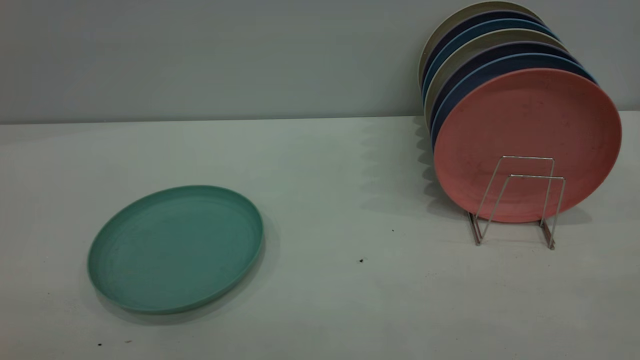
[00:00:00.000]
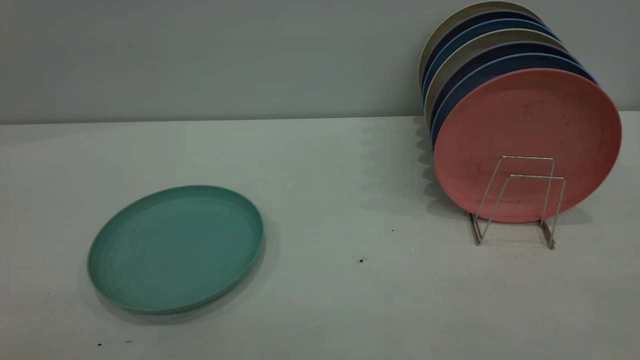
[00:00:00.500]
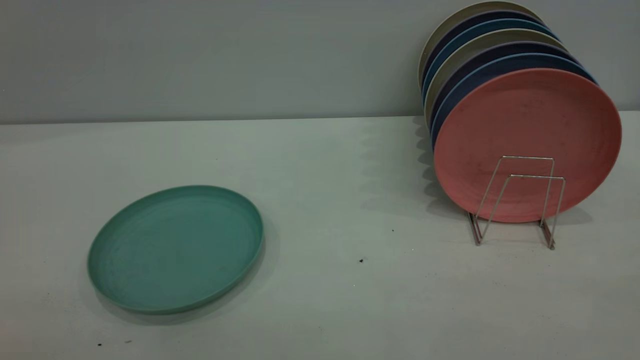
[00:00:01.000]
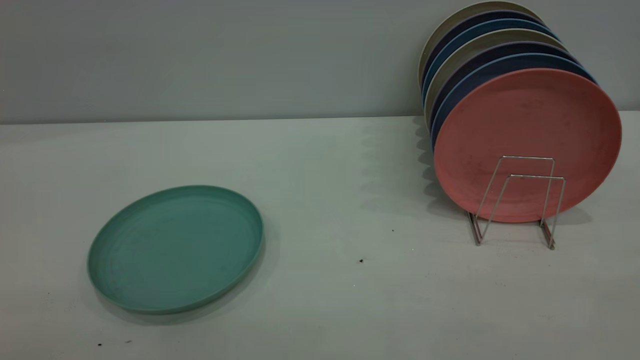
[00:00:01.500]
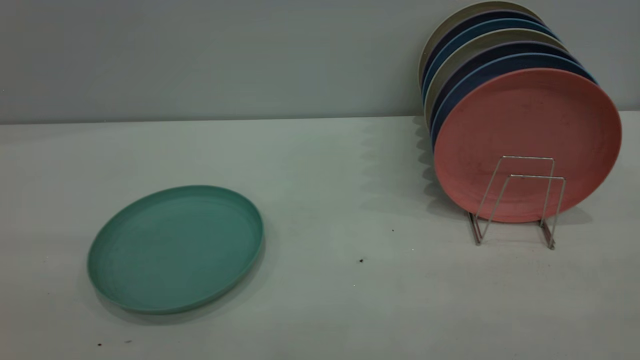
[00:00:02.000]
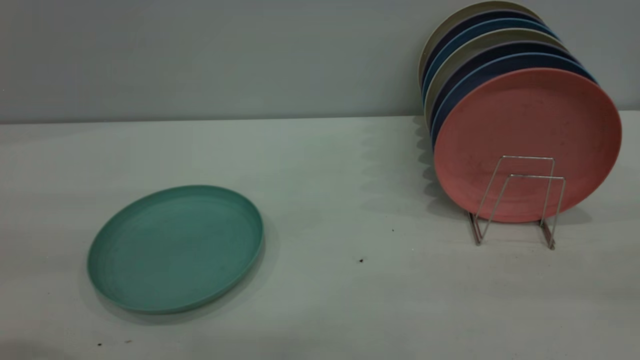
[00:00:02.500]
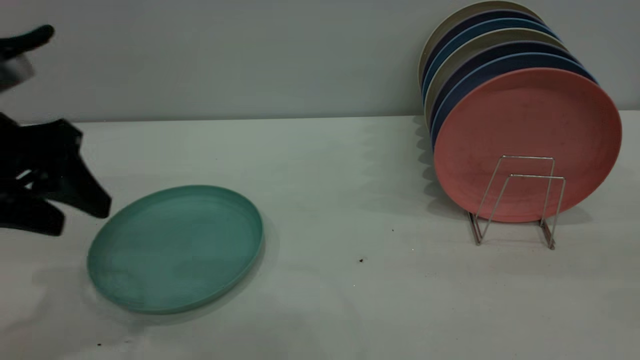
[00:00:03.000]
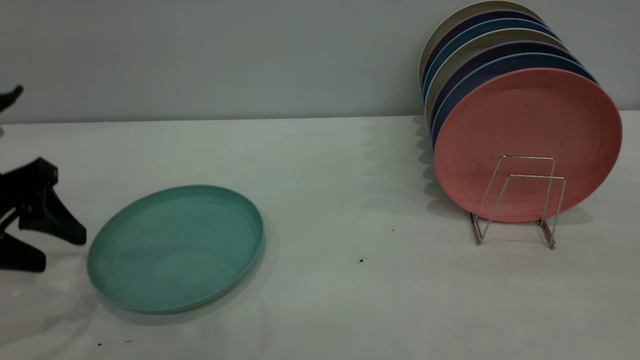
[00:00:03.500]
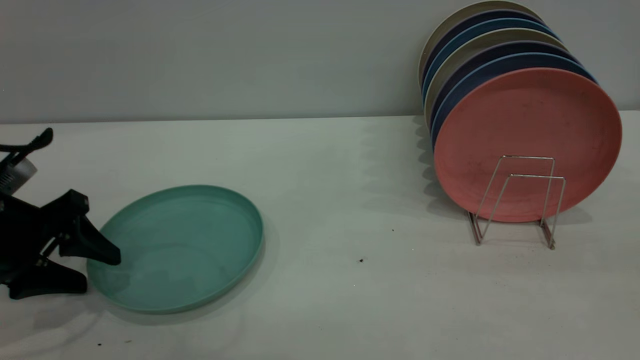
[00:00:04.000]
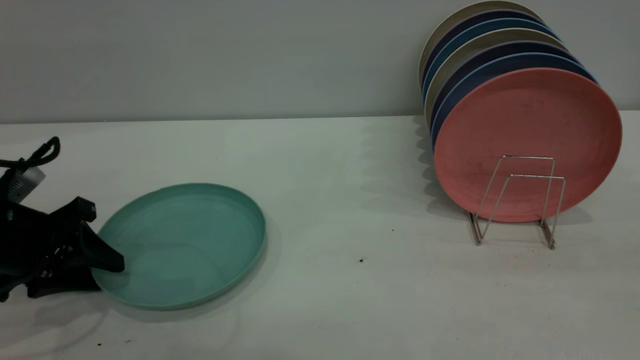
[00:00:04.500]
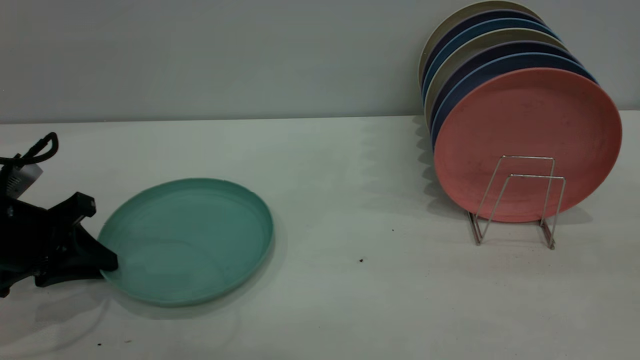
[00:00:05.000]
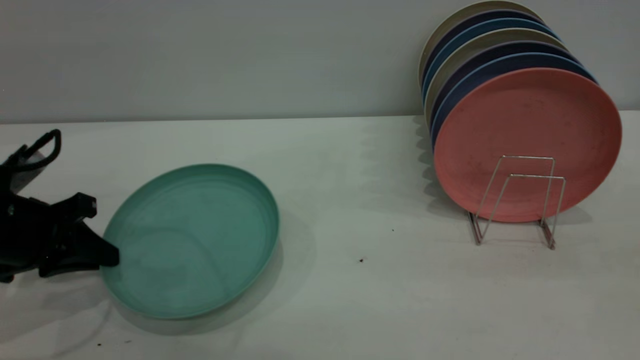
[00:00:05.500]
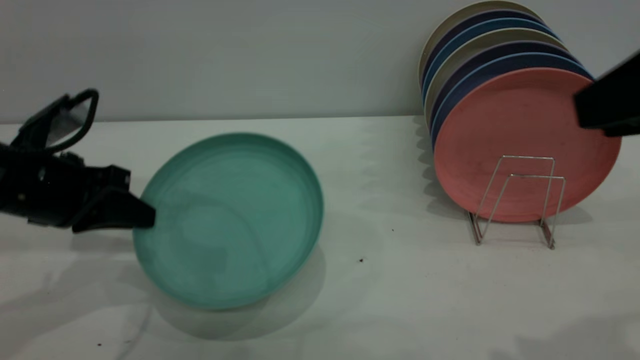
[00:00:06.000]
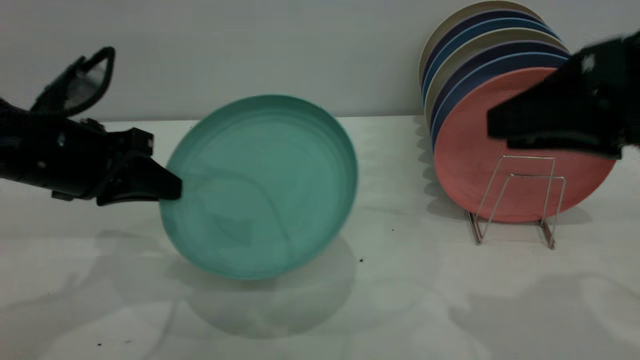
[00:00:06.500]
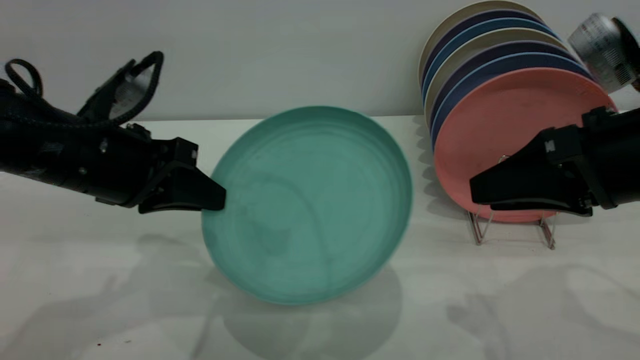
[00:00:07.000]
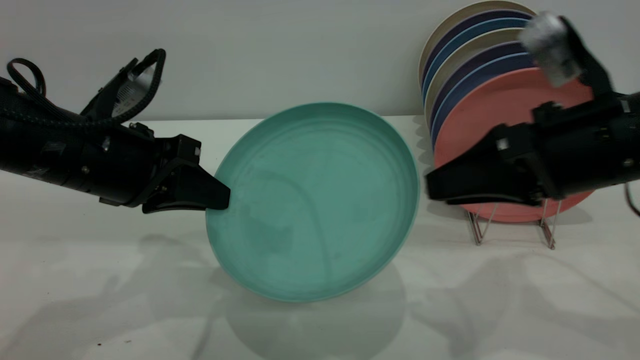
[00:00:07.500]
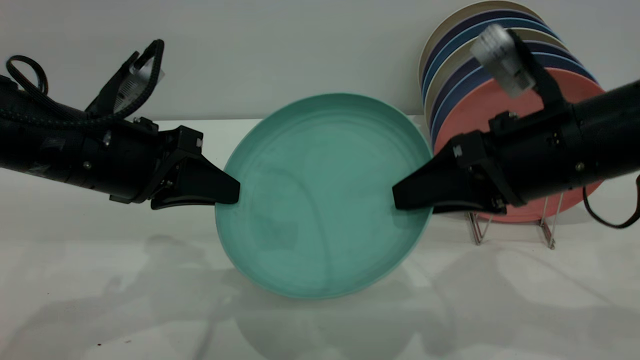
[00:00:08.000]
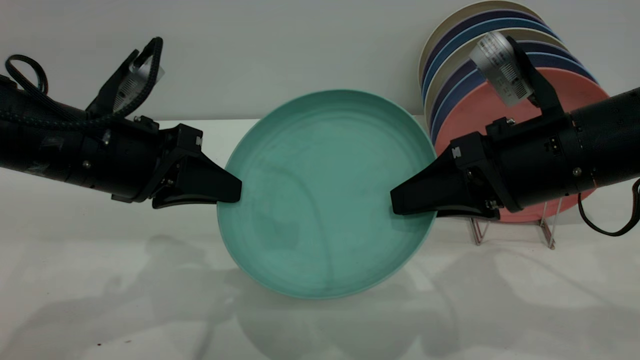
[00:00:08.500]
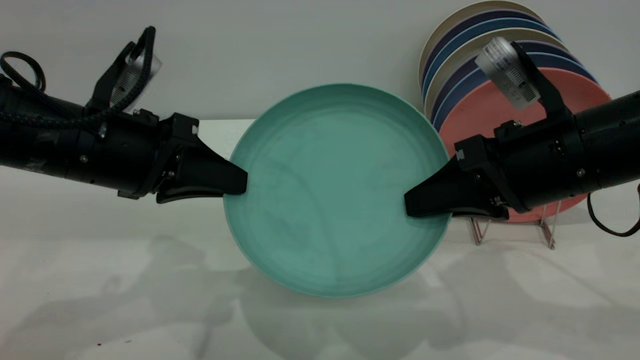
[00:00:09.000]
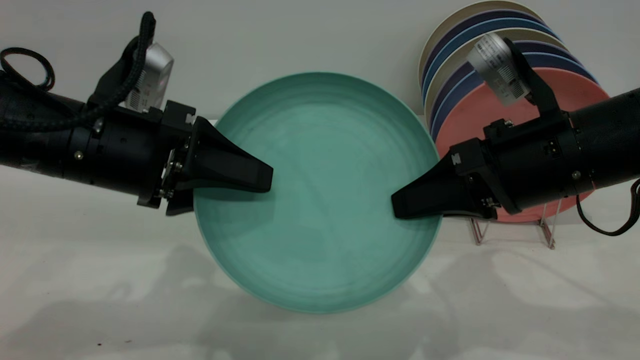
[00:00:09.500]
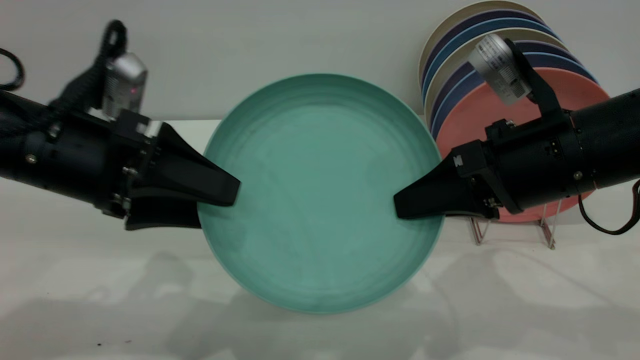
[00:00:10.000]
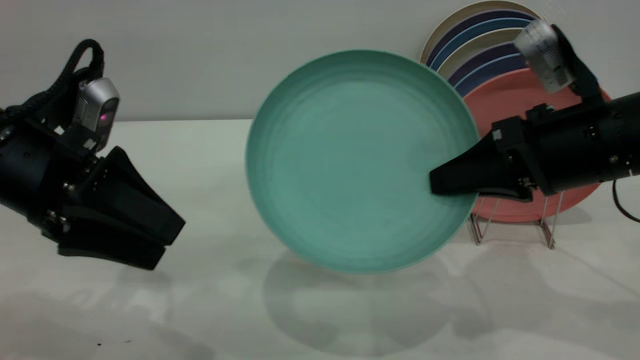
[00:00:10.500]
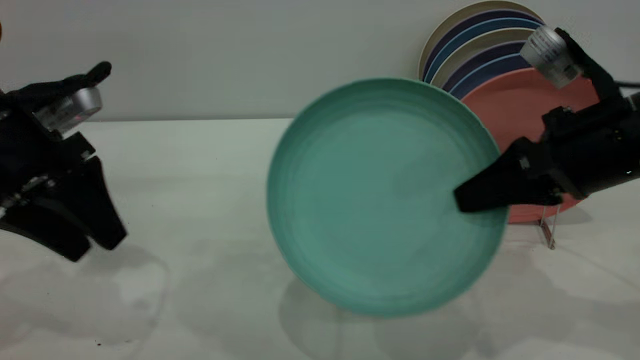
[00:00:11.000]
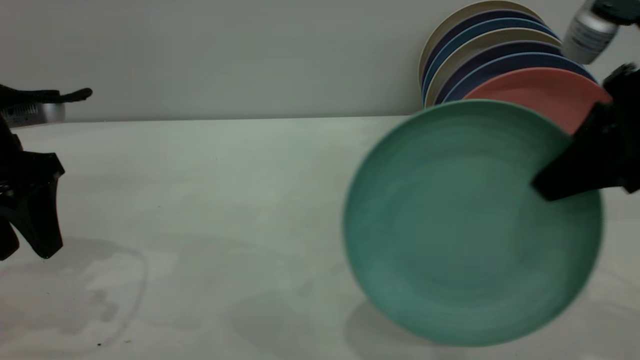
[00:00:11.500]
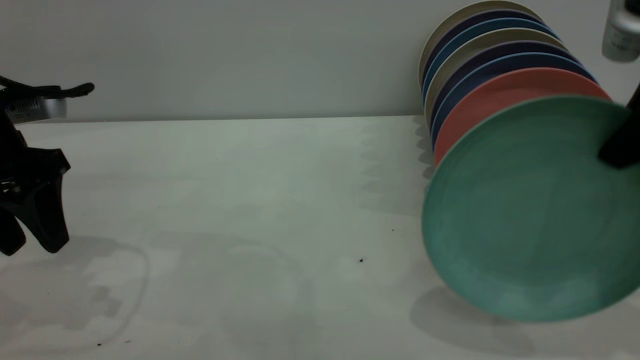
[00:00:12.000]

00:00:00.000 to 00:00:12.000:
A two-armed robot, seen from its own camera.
Task of the whole recording: the left gripper grasp the green plate, the left gripper pass the green plate to the right gripper, and the right gripper place the green plate on the plate rack.
Step, 00:00:00.000 to 00:00:05.000: Pick up the plate with the left gripper.
Step, 00:00:05.500 to 00:00:10.000: Pass the plate from the left gripper to the right gripper.
00:00:02.000 to 00:00:04.000: The left gripper travels downward and forward by approximately 35 cm.
00:00:04.000 to 00:00:06.000: The right gripper heads forward, covering approximately 5 cm. Meanwhile the left gripper ends up roughly 5 cm from where it was, and closes its fingers.
00:00:06.000 to 00:00:08.000: The left gripper shifts roughly 10 cm to the right. Meanwhile the right gripper heads downward, forward and to the left, covering about 15 cm.
00:00:08.000 to 00:00:10.000: The left gripper opens. The right gripper closes up.
00:00:10.000 to 00:00:12.000: The right gripper moves upward and to the right, some 15 cm. The left gripper is displaced to the left by some 10 cm.

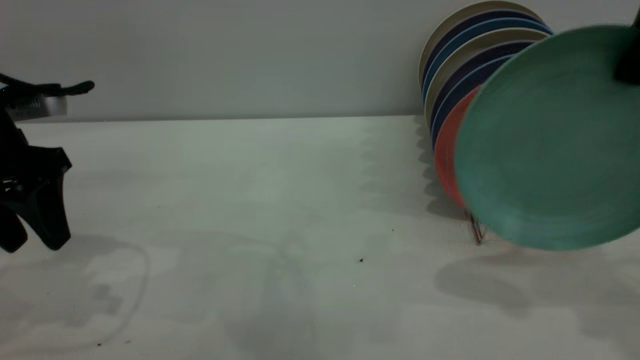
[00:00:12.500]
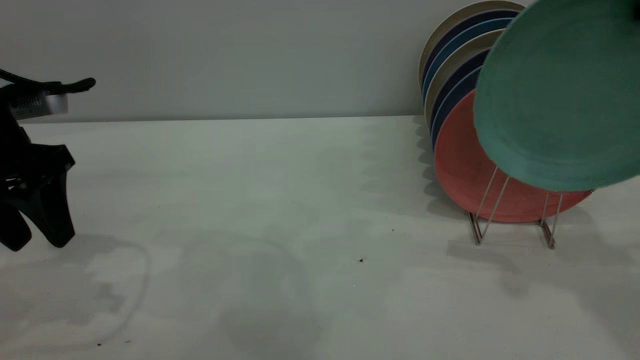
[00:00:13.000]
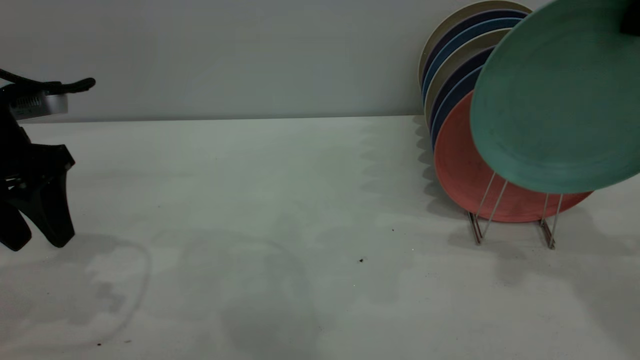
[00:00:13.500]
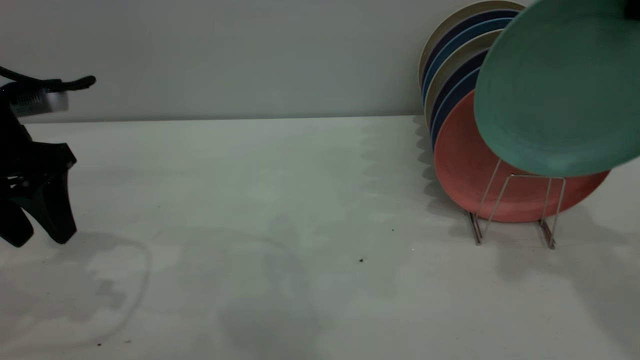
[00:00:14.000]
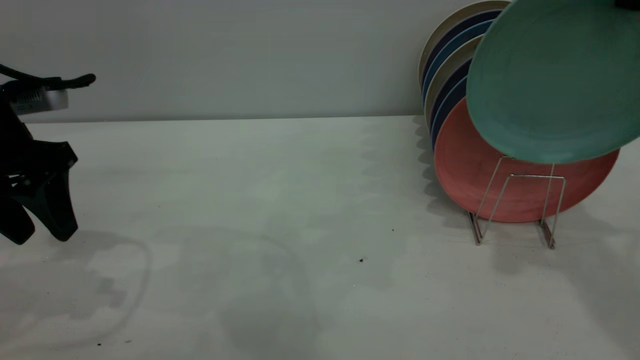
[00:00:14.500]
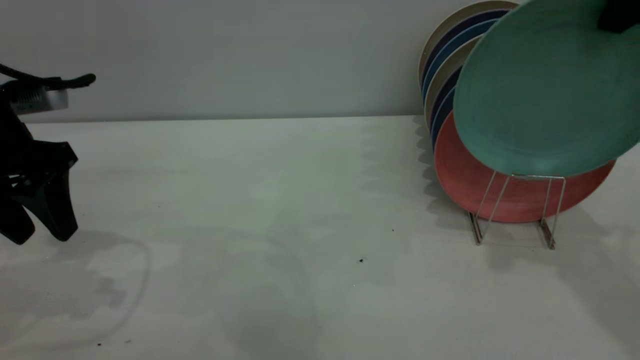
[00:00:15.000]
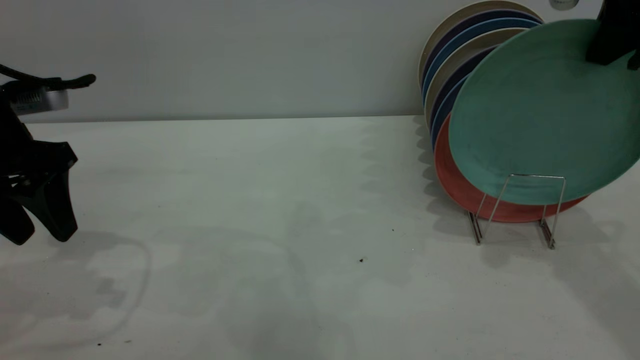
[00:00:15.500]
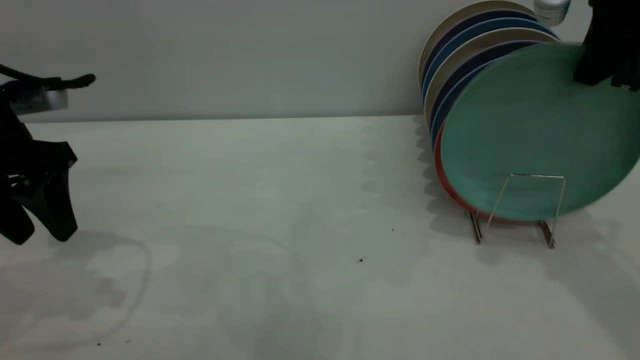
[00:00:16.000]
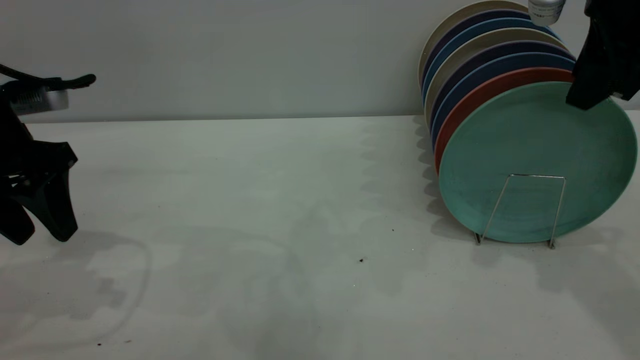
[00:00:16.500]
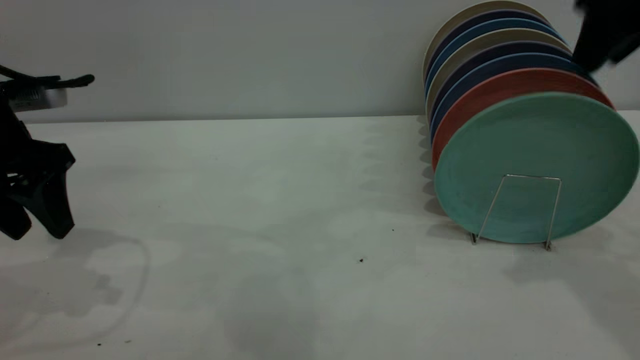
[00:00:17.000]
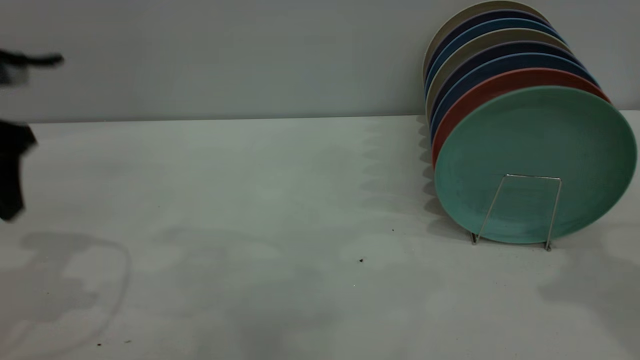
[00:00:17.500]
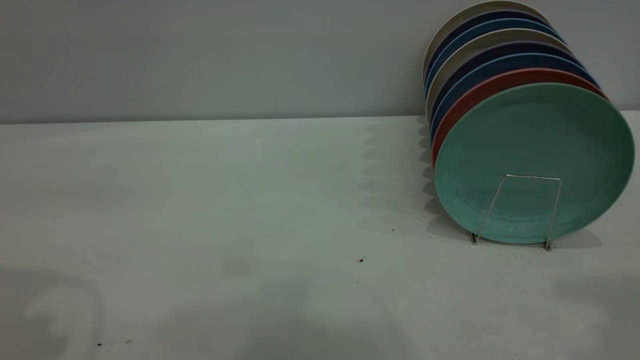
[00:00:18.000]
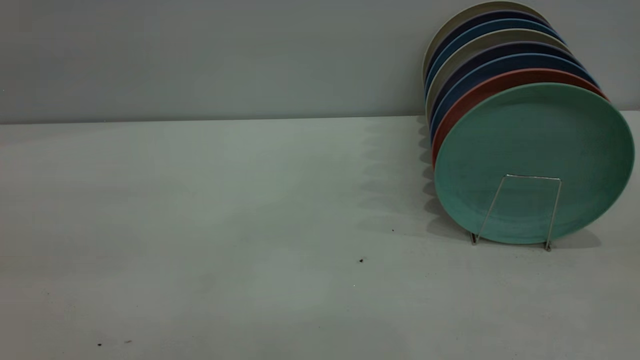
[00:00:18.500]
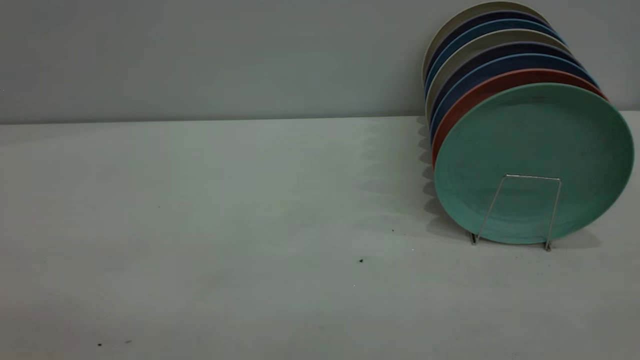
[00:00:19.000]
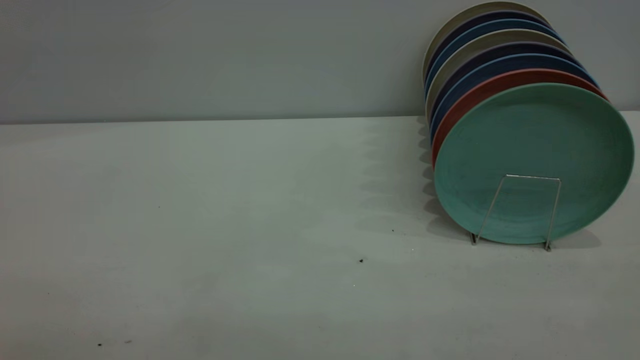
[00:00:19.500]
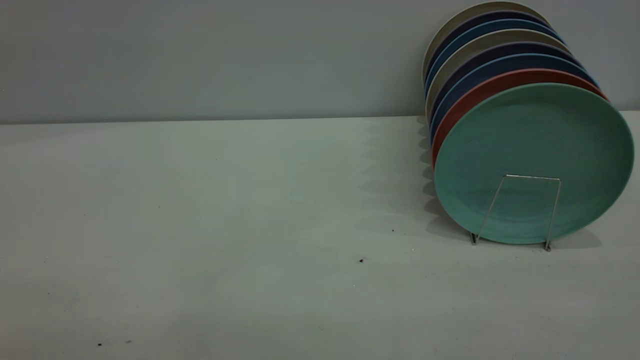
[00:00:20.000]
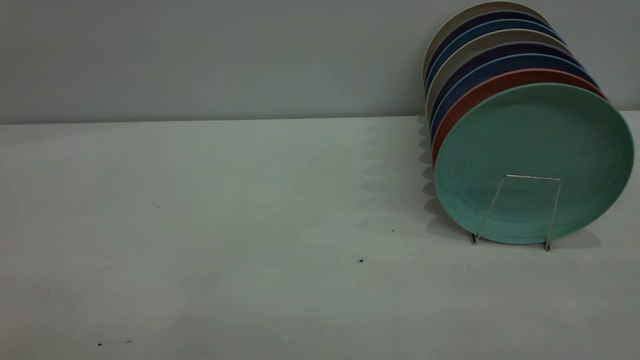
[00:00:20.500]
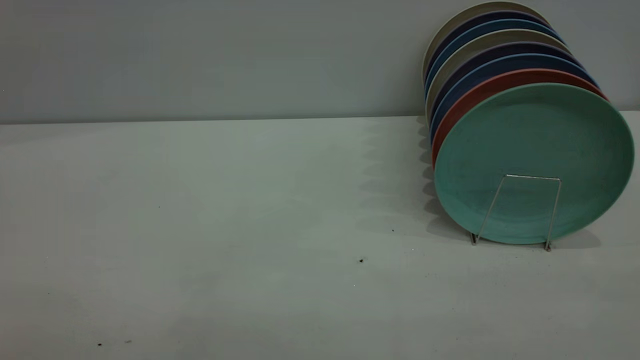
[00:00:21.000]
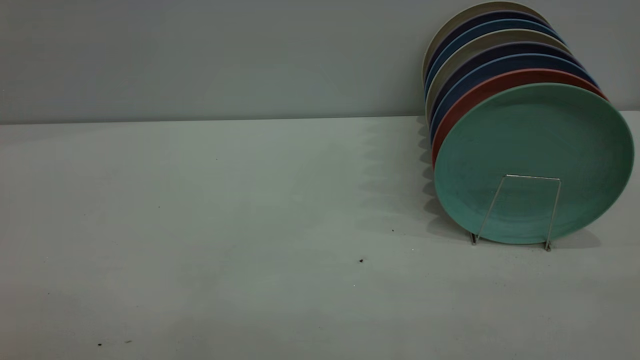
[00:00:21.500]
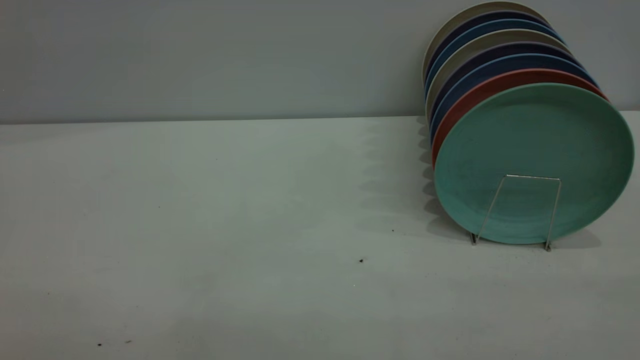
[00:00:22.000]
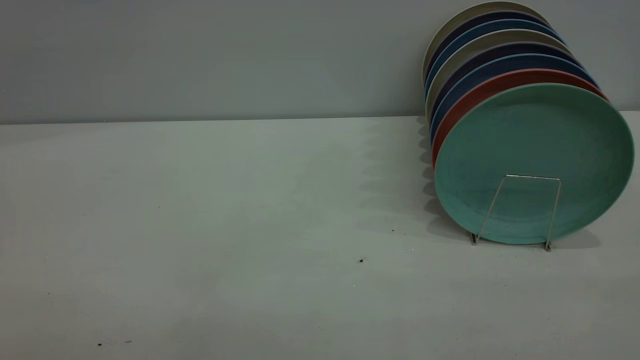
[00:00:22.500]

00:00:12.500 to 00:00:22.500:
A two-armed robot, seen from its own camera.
Task of the whole recording: the left gripper grasp the green plate, the left gripper pass the green plate to the right gripper, and the right gripper place the green plate on the plate rack.
Step, 00:00:12.500 to 00:00:17.000: Place the plate on the shelf.
00:00:12.500 to 00:00:14.500: The grippers move only a little.
00:00:14.500 to 00:00:16.500: The right gripper heads downward, covering some 5 cm, and opens up.
00:00:16.500 to 00:00:18.500: Both grippers move backward and upward, some 30 cm.
